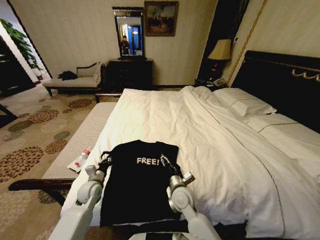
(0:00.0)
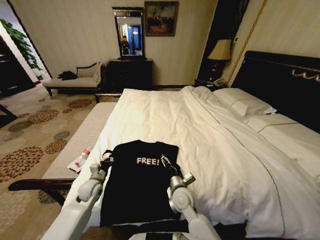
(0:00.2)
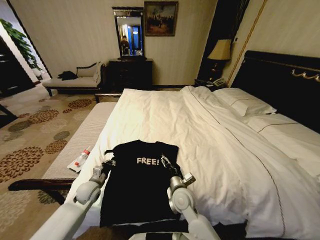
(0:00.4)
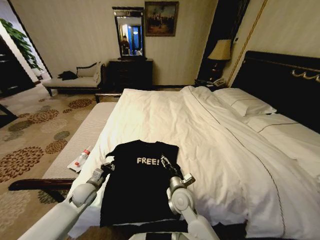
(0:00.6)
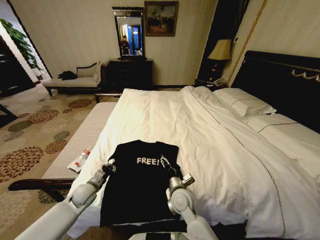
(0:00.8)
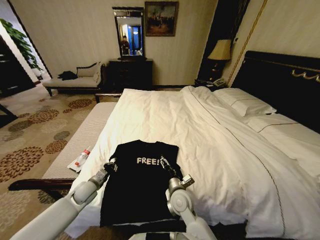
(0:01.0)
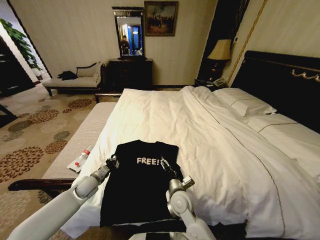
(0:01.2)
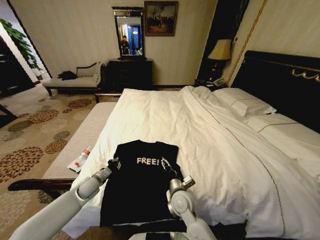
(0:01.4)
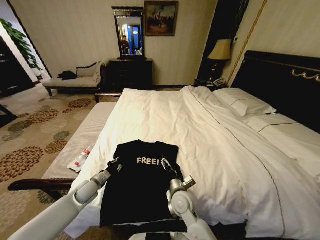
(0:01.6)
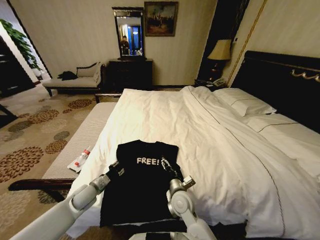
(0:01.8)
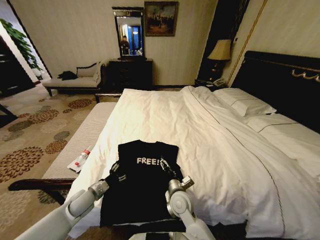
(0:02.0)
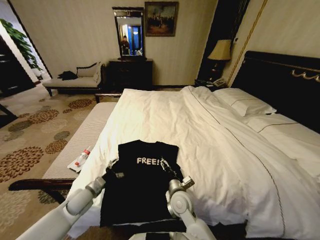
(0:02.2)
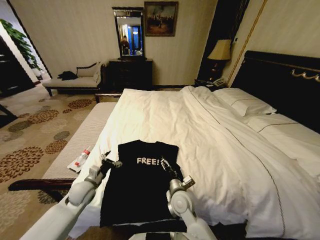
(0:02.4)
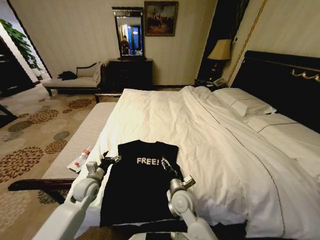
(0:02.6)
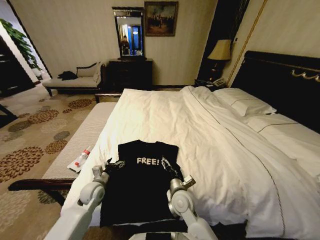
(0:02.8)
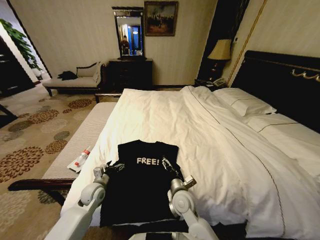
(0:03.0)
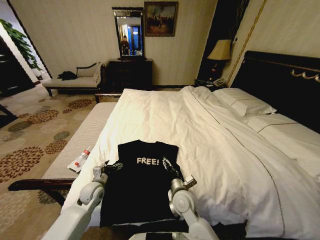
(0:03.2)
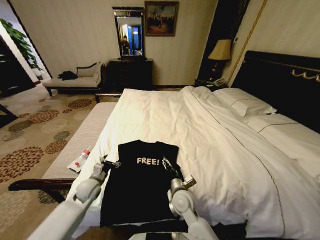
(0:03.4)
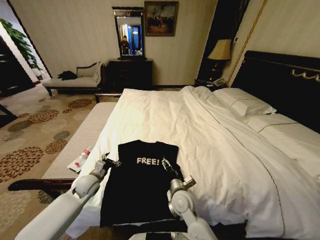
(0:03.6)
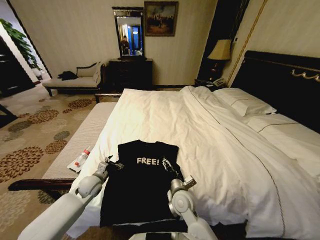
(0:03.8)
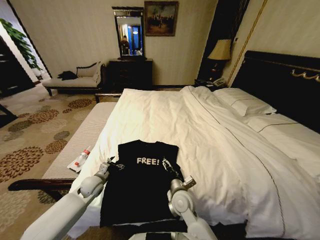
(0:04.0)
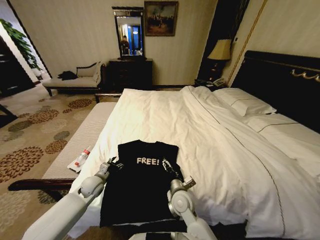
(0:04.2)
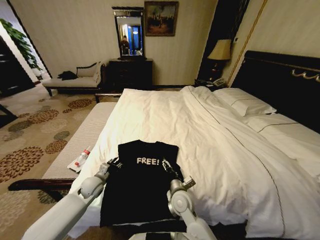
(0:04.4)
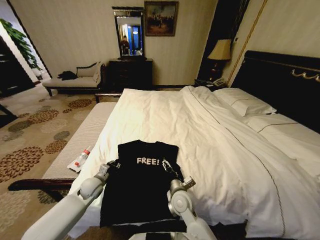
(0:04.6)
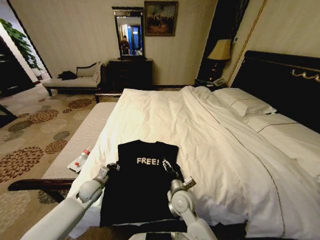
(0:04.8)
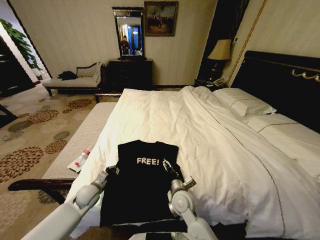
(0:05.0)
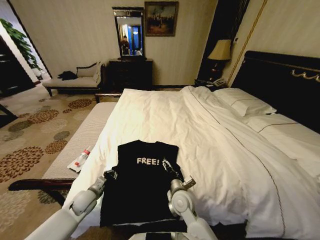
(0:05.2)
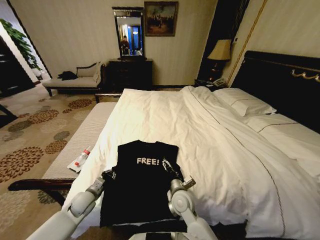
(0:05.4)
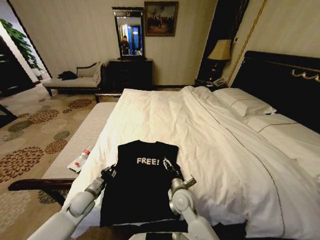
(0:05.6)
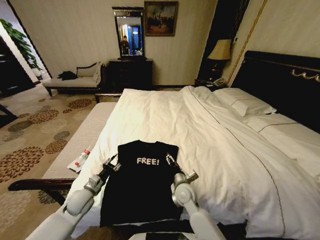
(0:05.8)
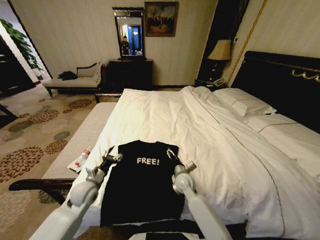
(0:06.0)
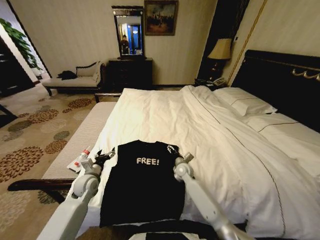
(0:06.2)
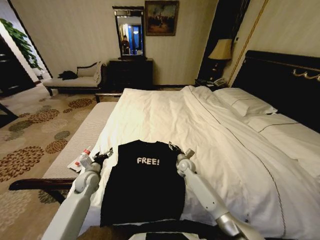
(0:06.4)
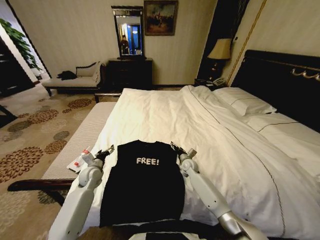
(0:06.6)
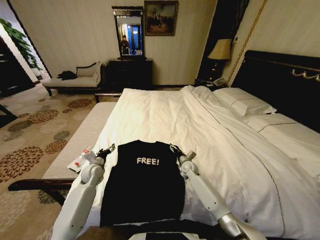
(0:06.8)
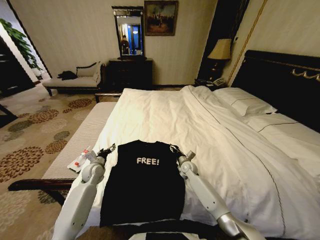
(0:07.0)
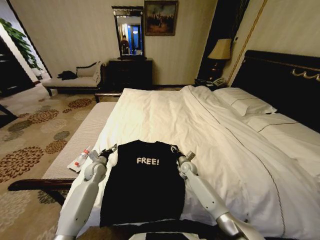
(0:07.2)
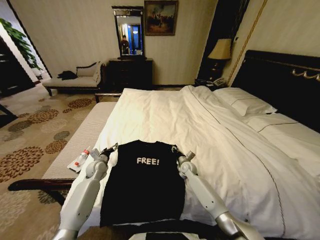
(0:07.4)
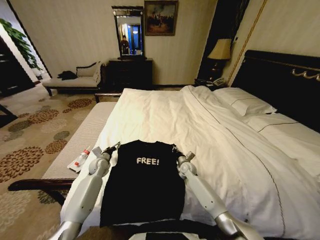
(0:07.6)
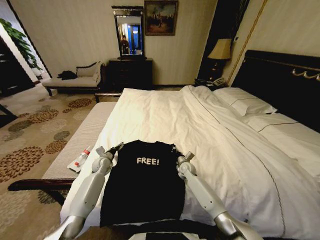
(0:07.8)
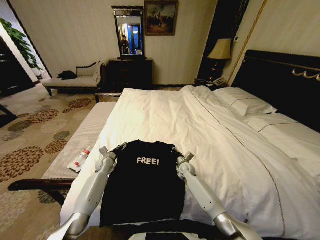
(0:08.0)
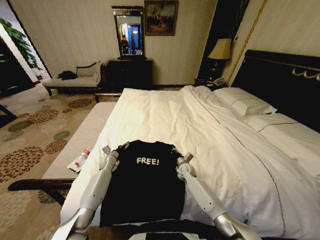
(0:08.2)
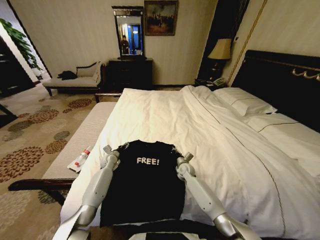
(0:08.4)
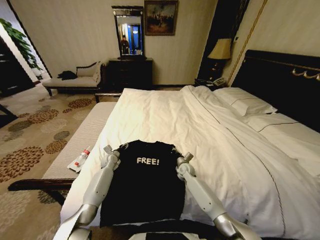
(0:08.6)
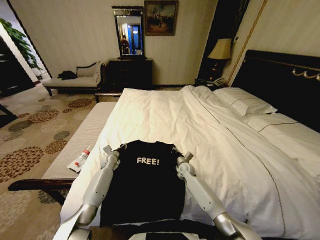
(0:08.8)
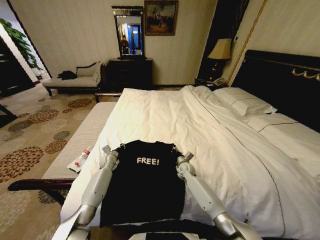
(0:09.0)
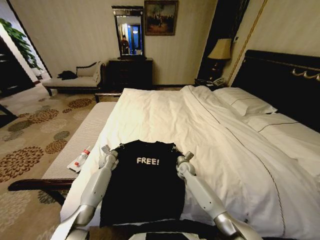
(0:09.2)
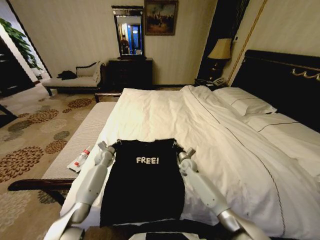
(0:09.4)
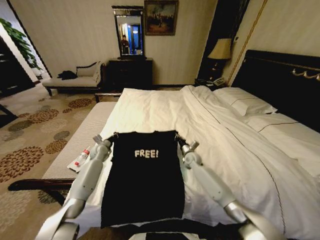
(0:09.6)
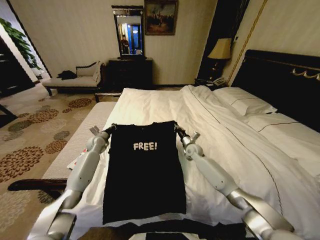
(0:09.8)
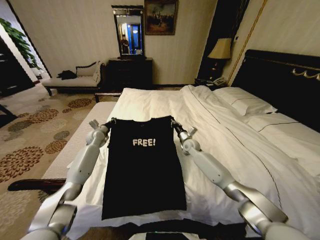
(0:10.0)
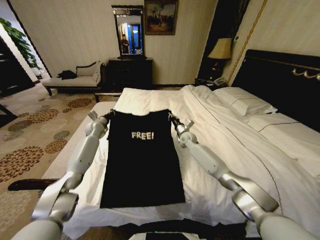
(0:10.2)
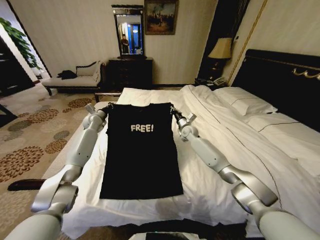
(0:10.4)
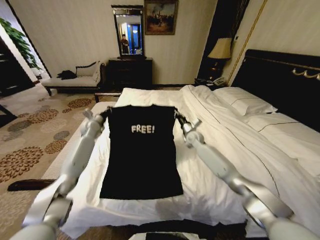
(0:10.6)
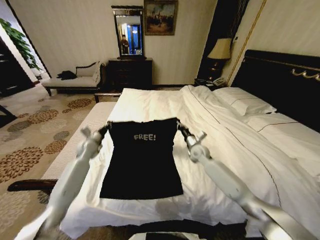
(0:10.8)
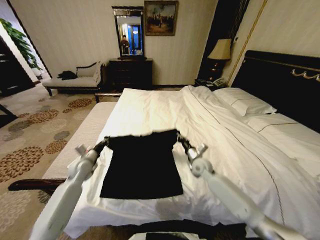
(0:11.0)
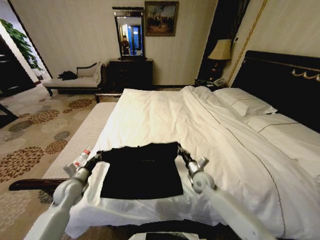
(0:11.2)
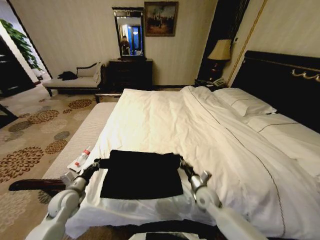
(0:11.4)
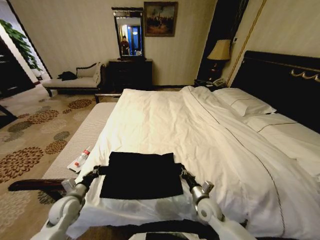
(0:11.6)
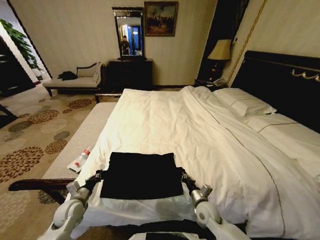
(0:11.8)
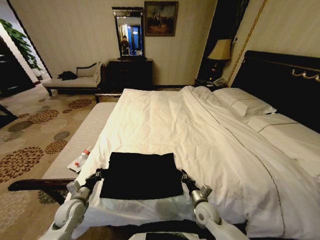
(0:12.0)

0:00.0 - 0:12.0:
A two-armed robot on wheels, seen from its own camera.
Task of the whole recording: Fold the clothes on the bed.
0:01.6 - 0:03.0: The left gripper opens up.
0:03.0 - 0:04.4: The left gripper closes its fingers.
0:04.4 - 0:06.0: The left gripper is displaced upward by approximately 5 cm, and closes and opens again. The right gripper goes approximately 10 cm forward.
0:06.0 - 0:07.6: The left gripper goes approximately 15 cm forward, while the right gripper travels forward, downward and to the right by roughly 15 cm, and closes.
0:07.6 - 0:09.0: The left gripper changes place by roughly 5 cm, and closes up.
0:09.0 - 0:10.4: The grippers both shift upward and forward by approximately 25 cm.
0:10.4 - 0:12.0: The two grippers go about 40 cm backward and downward.

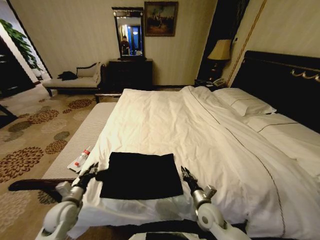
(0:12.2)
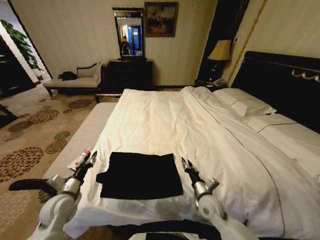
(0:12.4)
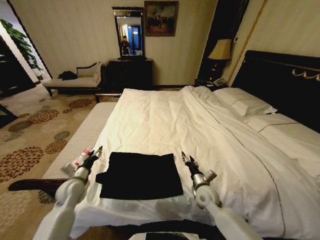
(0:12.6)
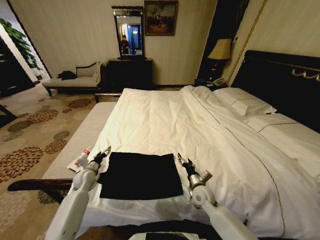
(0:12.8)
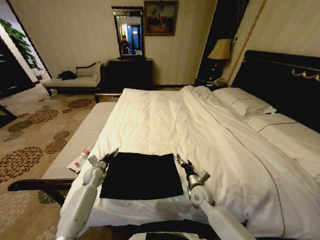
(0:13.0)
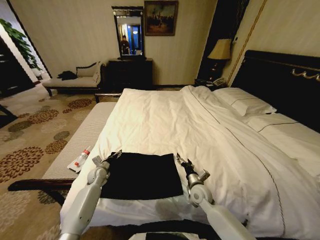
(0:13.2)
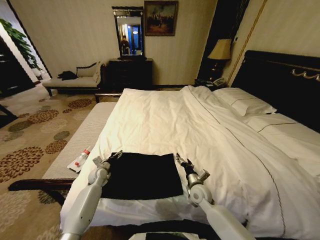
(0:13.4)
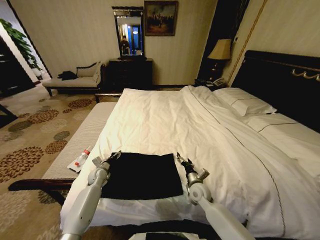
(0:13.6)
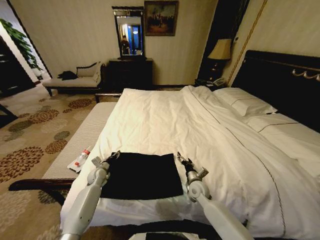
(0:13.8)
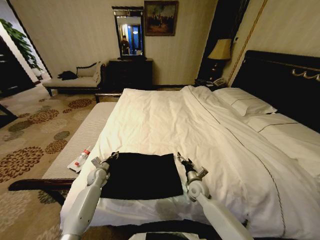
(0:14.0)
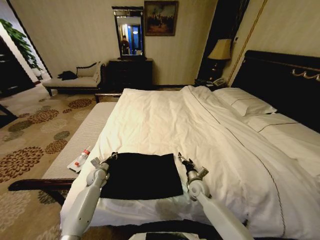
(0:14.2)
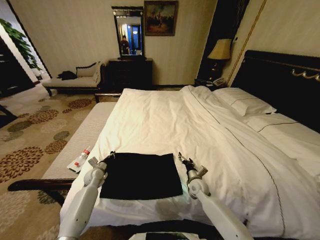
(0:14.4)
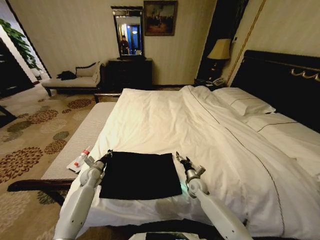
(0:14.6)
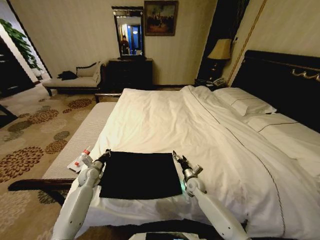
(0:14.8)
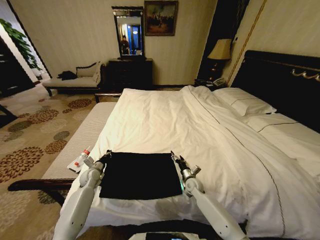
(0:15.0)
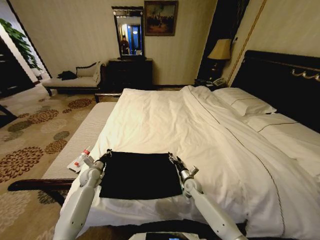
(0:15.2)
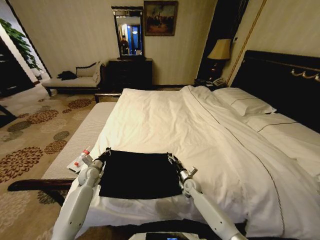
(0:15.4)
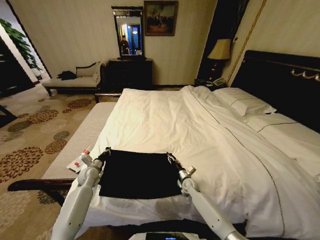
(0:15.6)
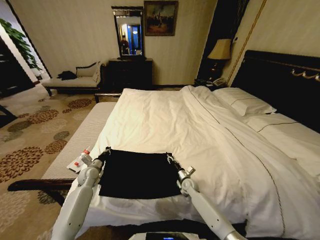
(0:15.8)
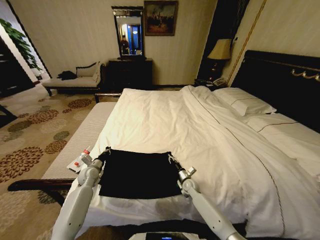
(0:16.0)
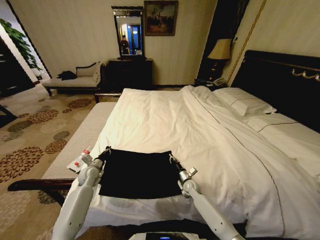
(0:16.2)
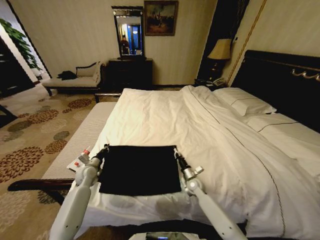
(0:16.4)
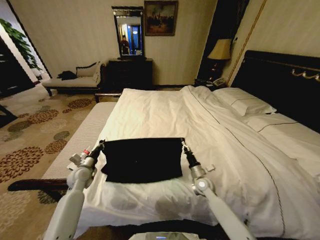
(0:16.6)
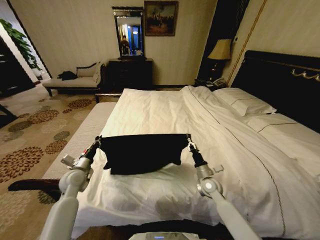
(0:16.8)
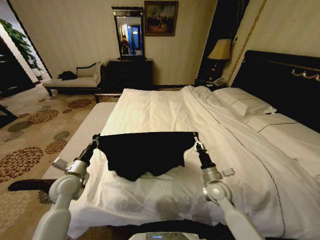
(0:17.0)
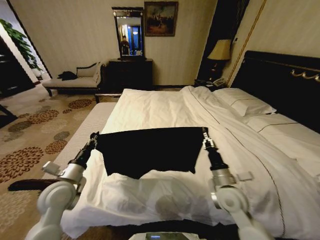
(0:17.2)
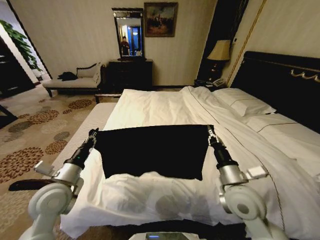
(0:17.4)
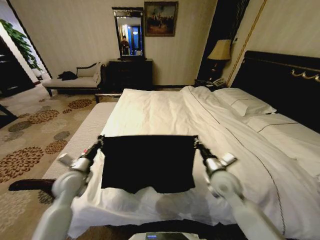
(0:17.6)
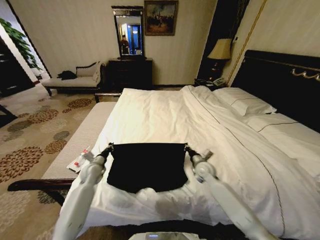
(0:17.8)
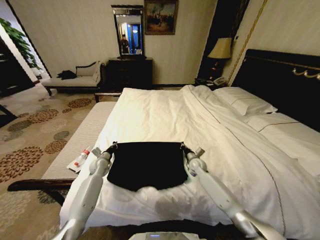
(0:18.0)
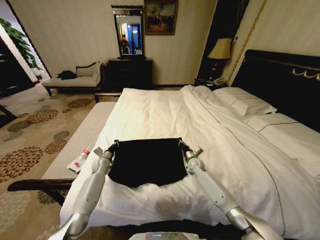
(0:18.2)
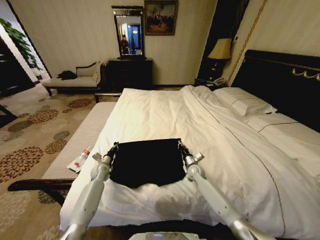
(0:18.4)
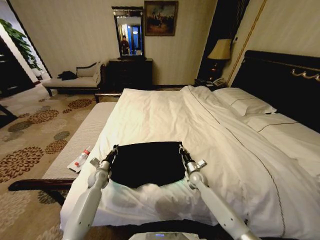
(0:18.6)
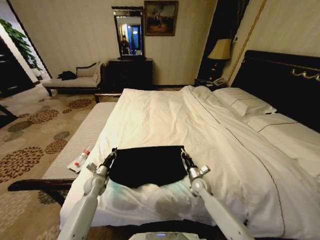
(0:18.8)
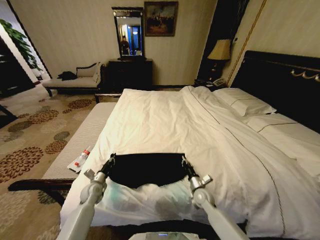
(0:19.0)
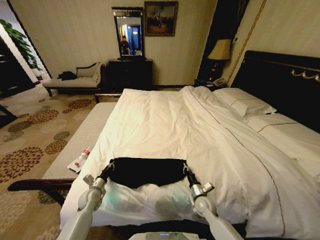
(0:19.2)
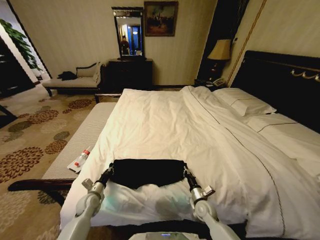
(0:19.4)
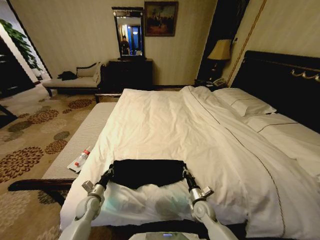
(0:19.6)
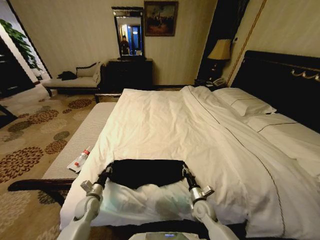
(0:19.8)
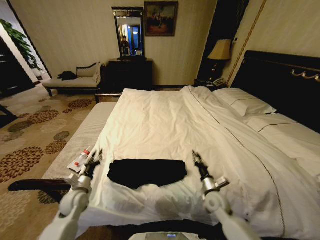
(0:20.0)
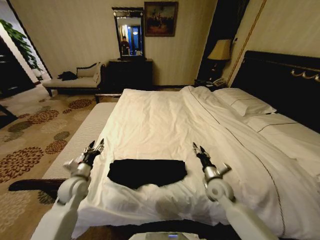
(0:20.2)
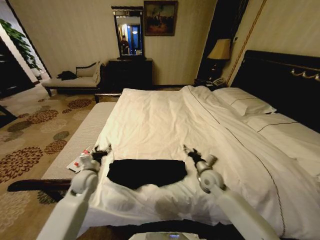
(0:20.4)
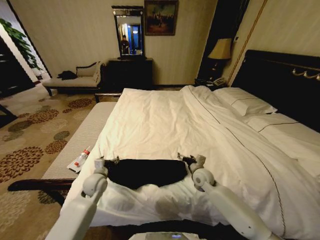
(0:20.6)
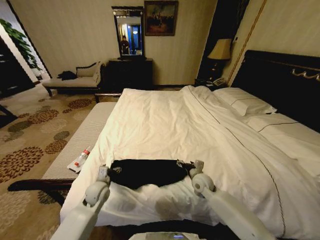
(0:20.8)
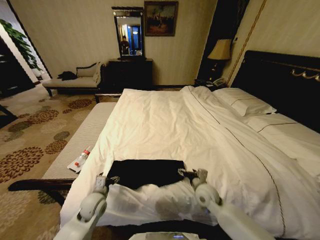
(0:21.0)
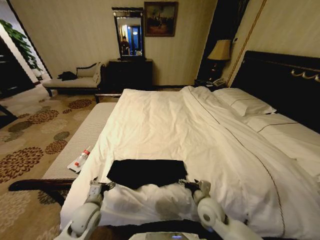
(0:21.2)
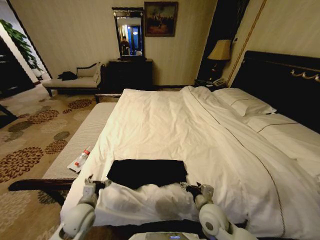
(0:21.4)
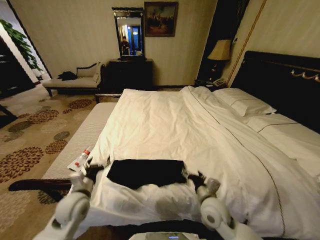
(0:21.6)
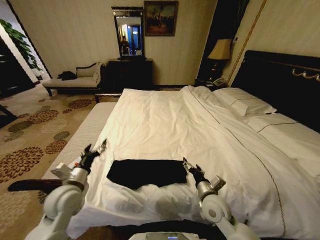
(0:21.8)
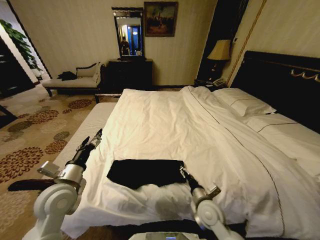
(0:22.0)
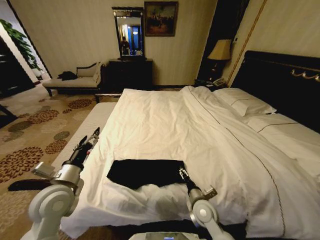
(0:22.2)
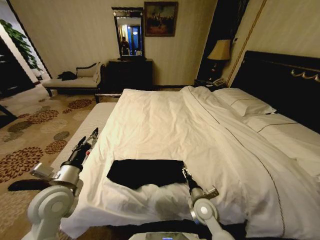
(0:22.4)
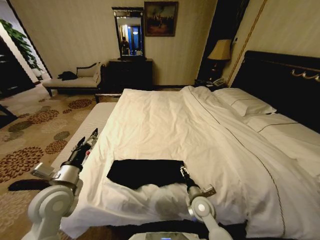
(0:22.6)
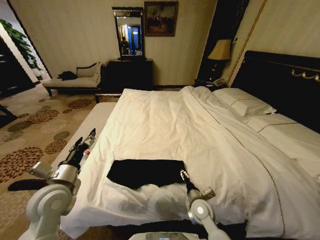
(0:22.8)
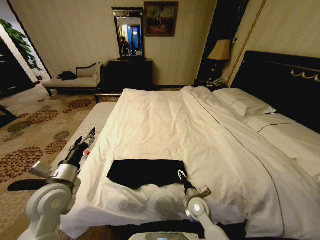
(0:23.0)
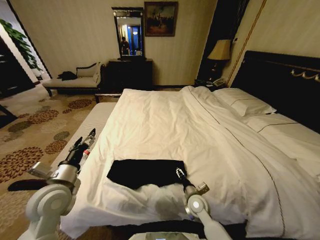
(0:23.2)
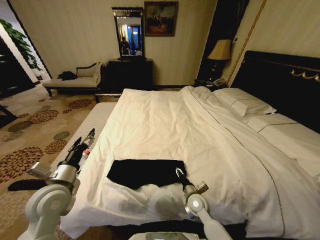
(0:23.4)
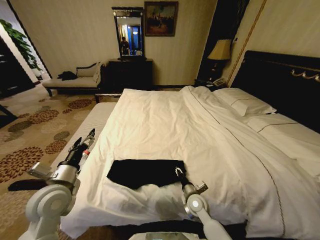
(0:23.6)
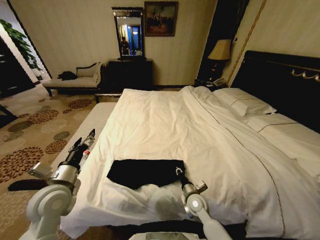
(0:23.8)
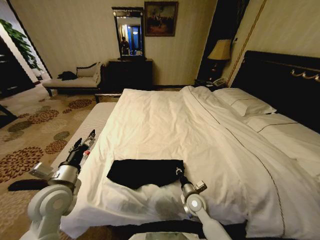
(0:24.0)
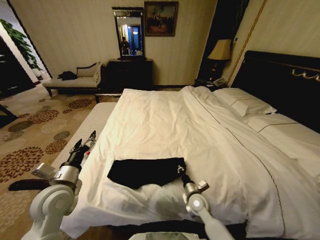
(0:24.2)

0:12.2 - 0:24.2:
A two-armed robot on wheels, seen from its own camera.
Task of the whole recording: Fold the clothes on the bed.
0:12.2 - 0:13.8: The right gripper is displaced forward by about 10 cm, and opens its fingers, while the left gripper travels forward and downward by approximately 20 cm, and opens and closes again.
0:13.8 - 0:15.2: The left gripper closes. Meanwhile the right gripper is displaced downward by about 5 cm.
0:15.2 - 0:16.6: Both grippers move upward, approximately 10 cm. The right gripper closes up.
0:16.6 - 0:18.2: The left gripper goes about 15 cm forward and downward. The right gripper goes about 15 cm forward.
0:18.2 - 0:19.8: The grippers both shift backward by some 20 cm.
0:19.8 - 0:21.2: The right gripper shifts roughly 10 cm upward, travels forward and back again, approximately 10 cm each way, and opens its fingers; the left gripper moves upward, to the right and backward, approximately 10 cm, and opens up.
0:21.2 - 0:22.6: The left gripper shifts approximately 15 cm upward.
0:22.6 - 0:24.2: The right gripper closes its fingers.
